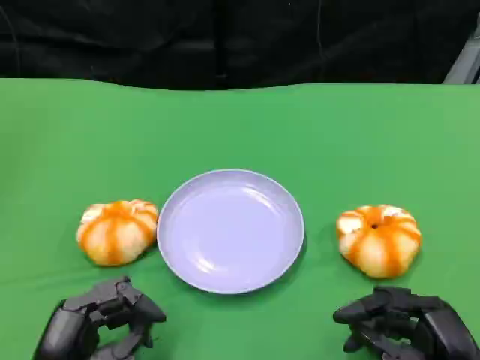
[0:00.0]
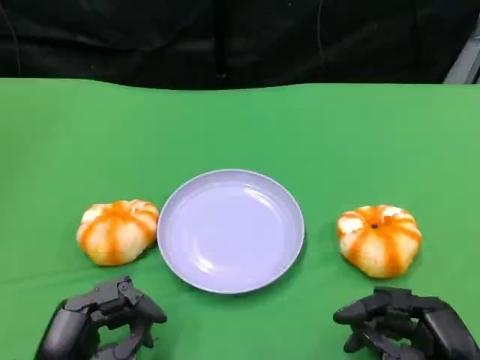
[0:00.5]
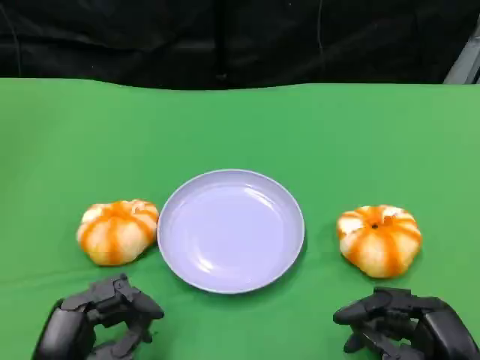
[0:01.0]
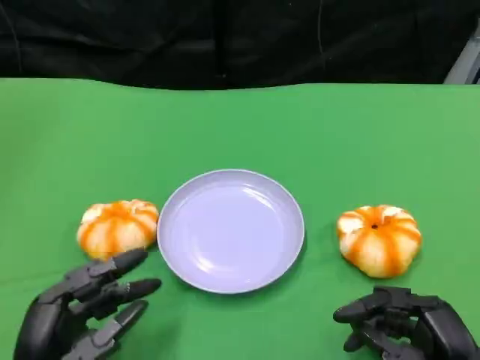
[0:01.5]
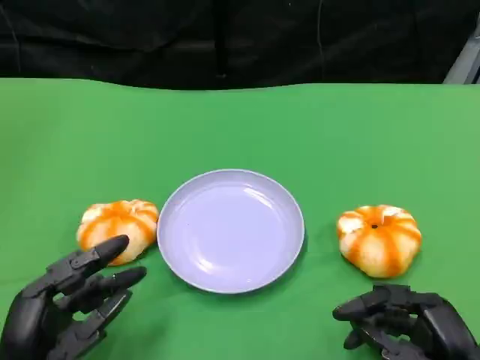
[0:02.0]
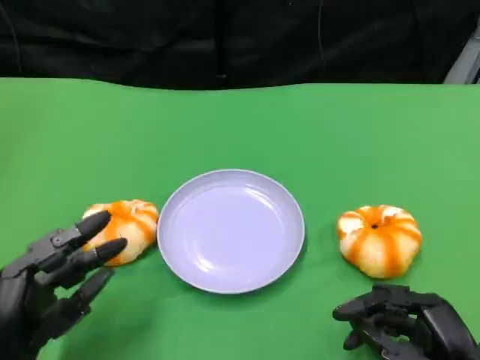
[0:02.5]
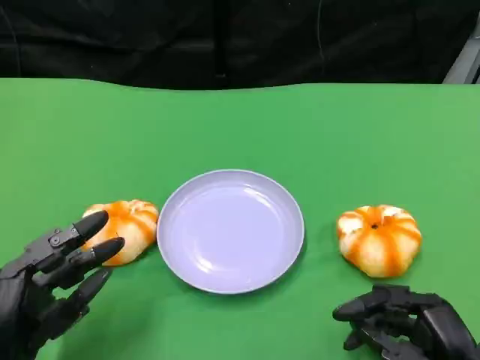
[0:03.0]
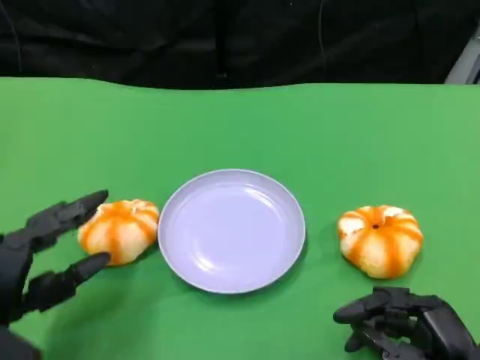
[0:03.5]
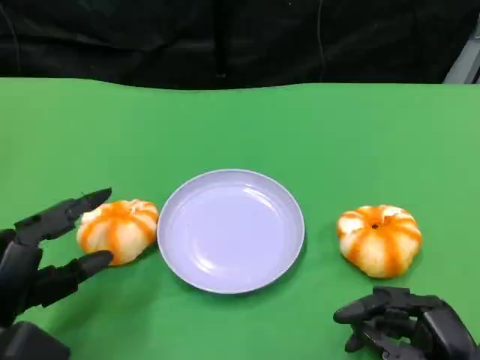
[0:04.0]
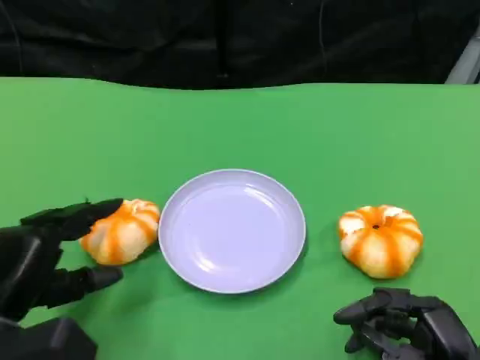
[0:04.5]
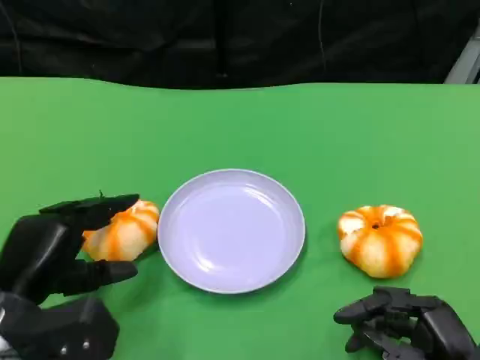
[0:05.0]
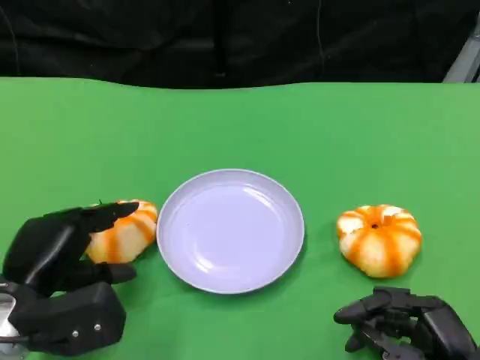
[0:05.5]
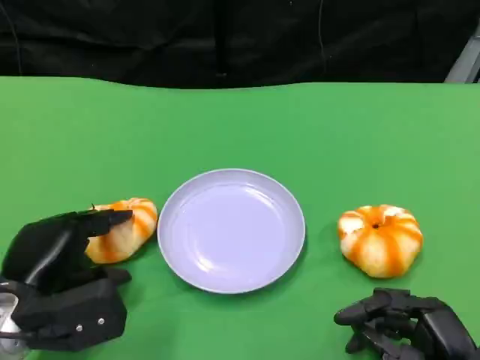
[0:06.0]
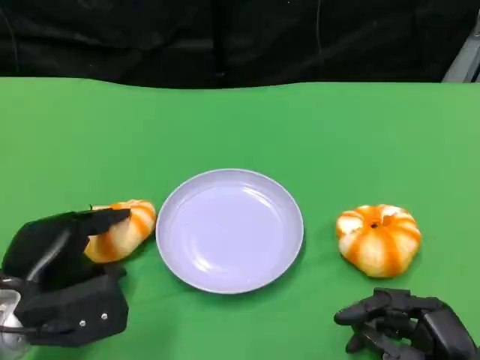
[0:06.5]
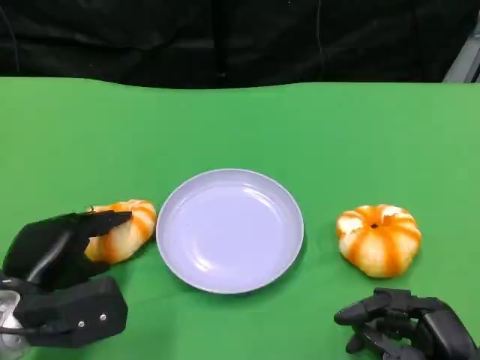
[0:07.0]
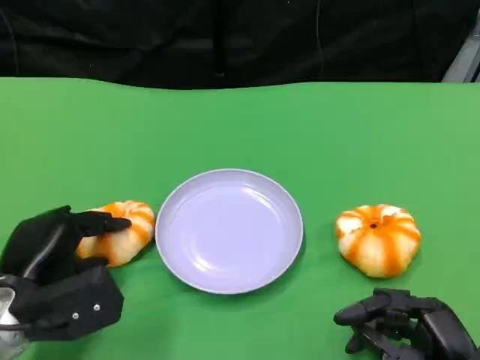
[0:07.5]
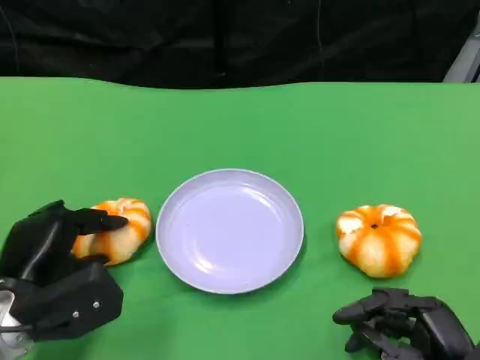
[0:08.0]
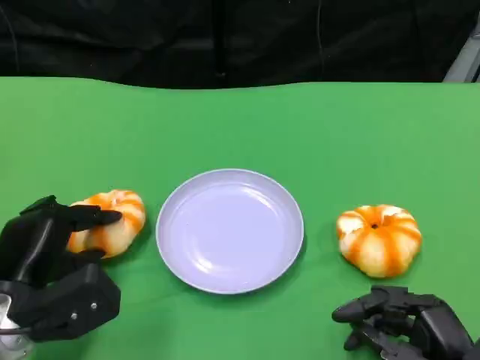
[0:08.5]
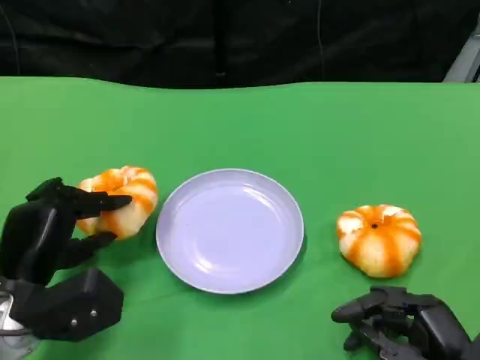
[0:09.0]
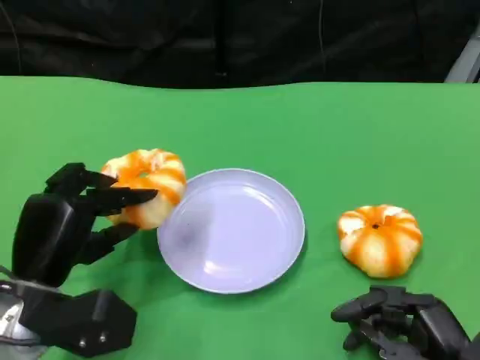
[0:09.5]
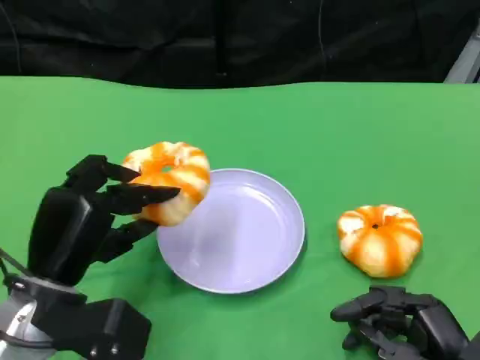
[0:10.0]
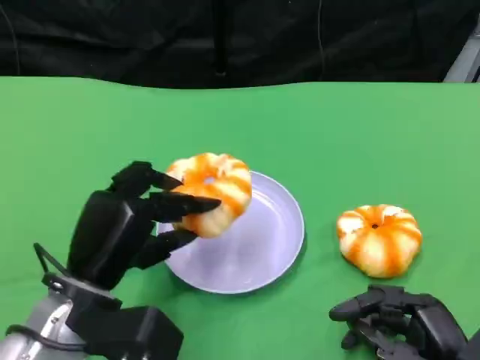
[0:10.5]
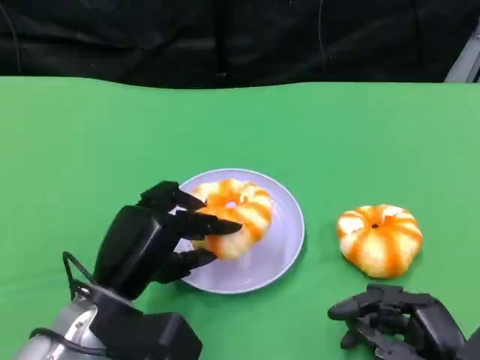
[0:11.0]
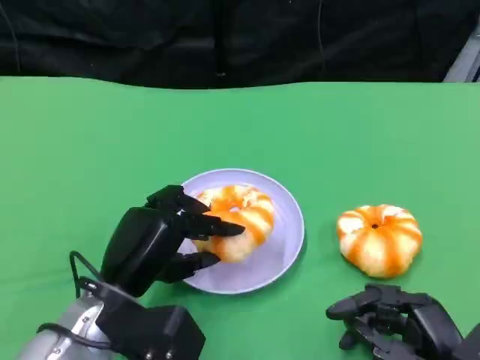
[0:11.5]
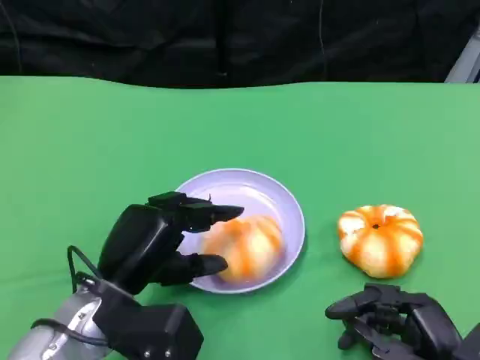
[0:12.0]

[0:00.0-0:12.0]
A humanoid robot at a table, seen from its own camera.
Task of the whole recording: Grasp the bread from the table and place it into the plate.
0:00.0 to 0:02.0: There are only small adjustments of the hands.
0:02.0 to 0:04.0: The left hand shifts by some 5 cm.
0:04.0 to 0:06.0: The left hand shifts by approximately 5 cm.
0:06.0 to 0:08.0: The hands make only small movements.
0:08.0 to 0:10.0: The left hand changes place by approximately 5 cm.

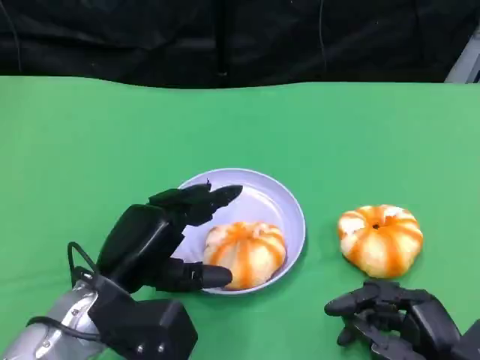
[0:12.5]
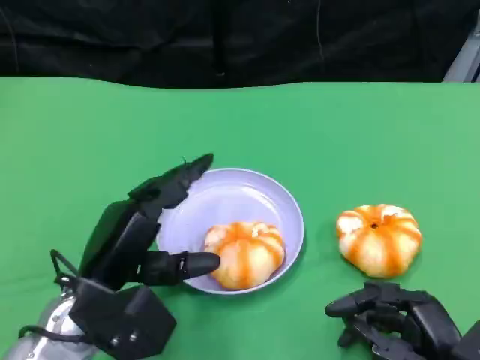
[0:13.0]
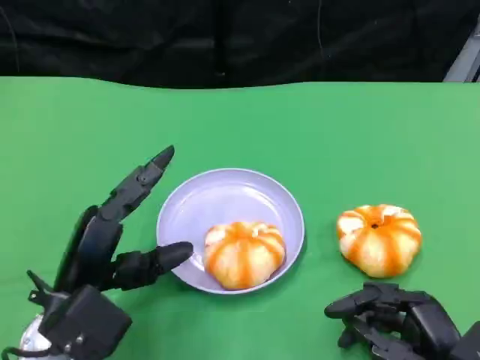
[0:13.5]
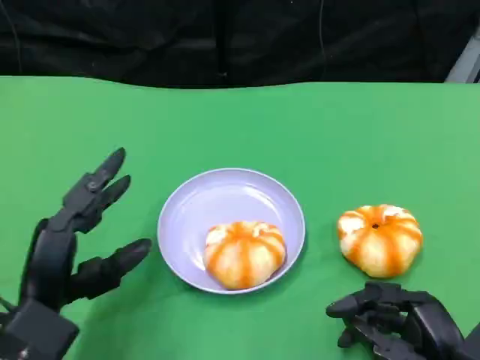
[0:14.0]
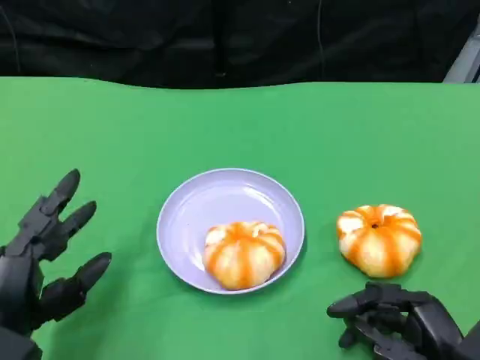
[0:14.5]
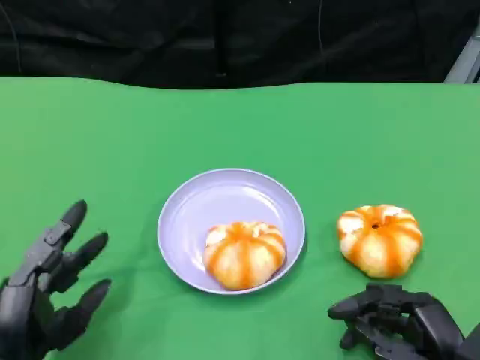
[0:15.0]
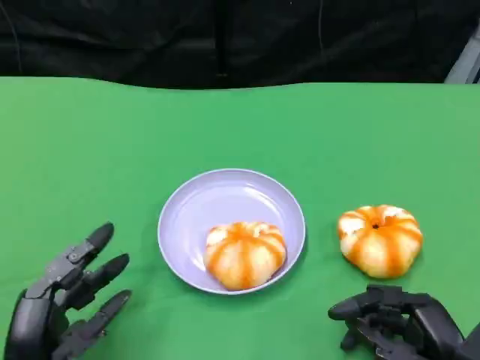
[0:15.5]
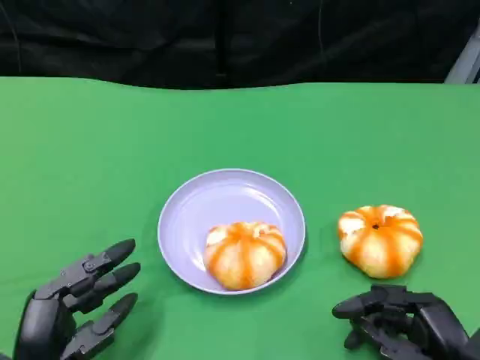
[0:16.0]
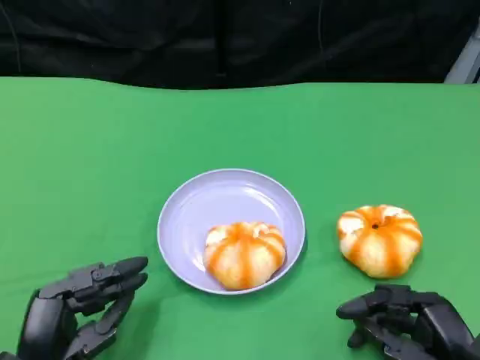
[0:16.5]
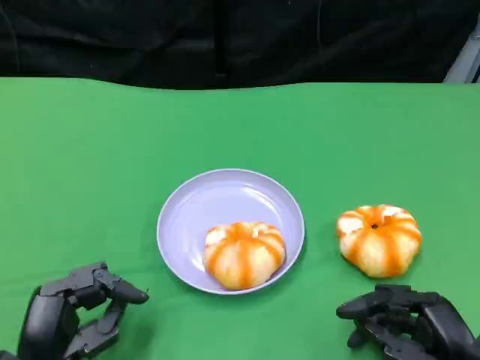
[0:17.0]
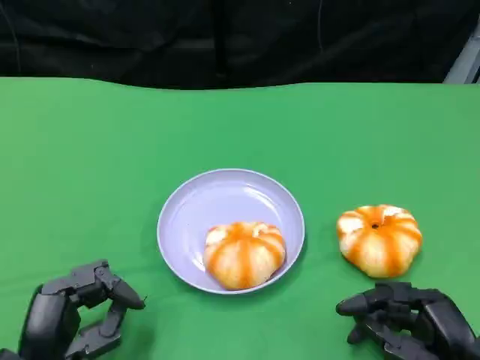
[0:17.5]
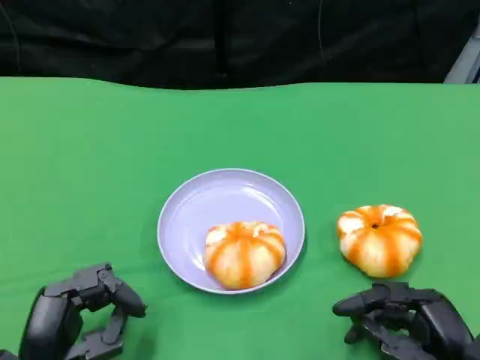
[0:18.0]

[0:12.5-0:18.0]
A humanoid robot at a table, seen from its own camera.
Task of the whole recording: Grasp the bread from the table and place it into the plate.
0:12.5 to 0:14.5: The left hand shifts approximately 10 cm to the left and backward.
0:14.5 to 0:16.0: The hands move only a little.
0:16.0 to 0:18.0: Both hands stay put.

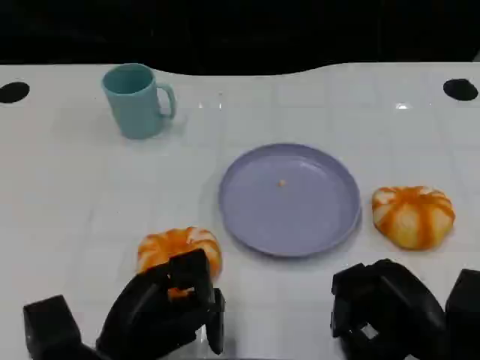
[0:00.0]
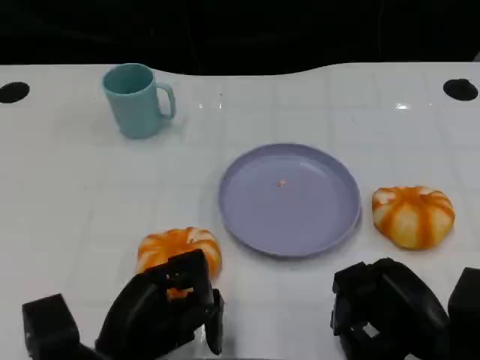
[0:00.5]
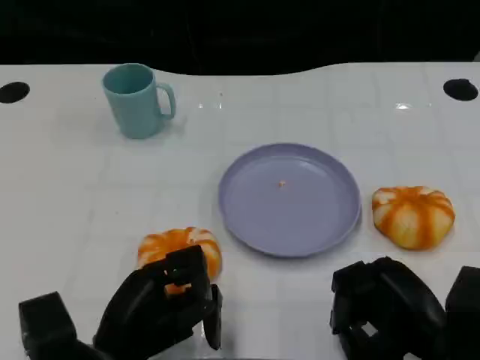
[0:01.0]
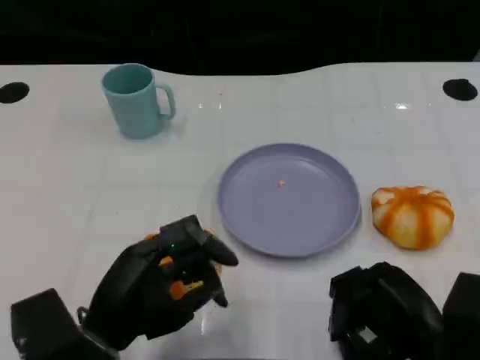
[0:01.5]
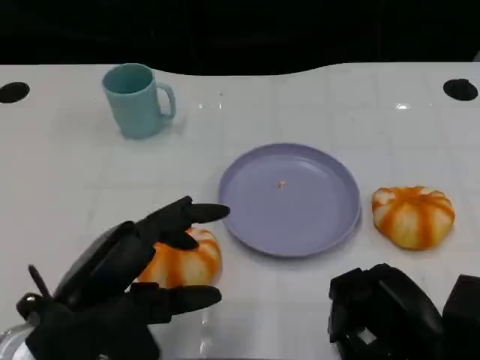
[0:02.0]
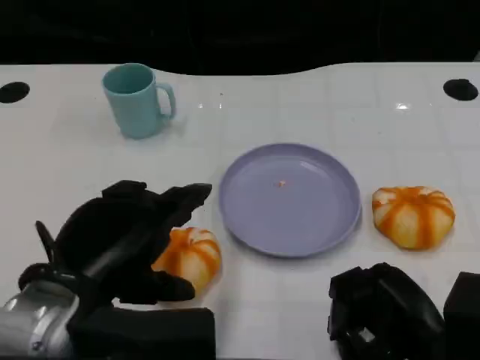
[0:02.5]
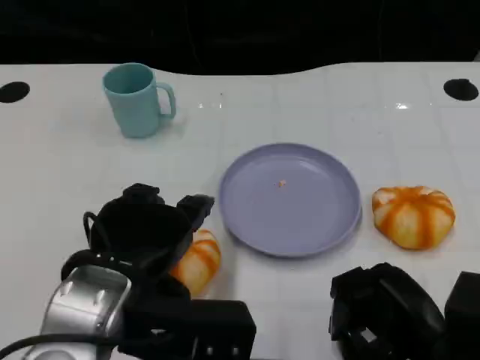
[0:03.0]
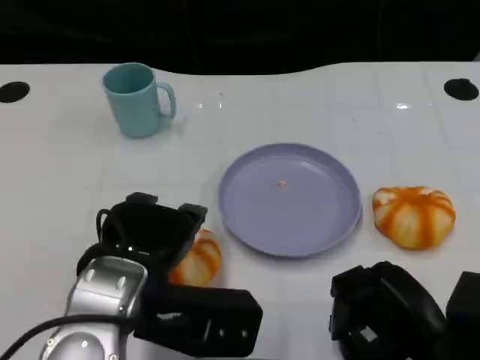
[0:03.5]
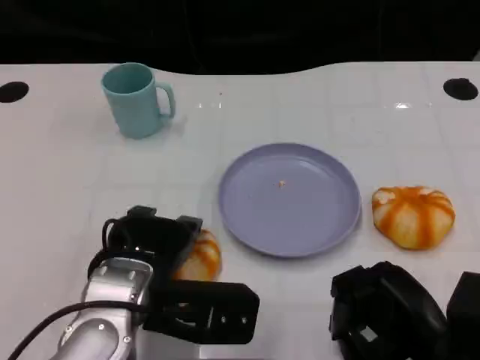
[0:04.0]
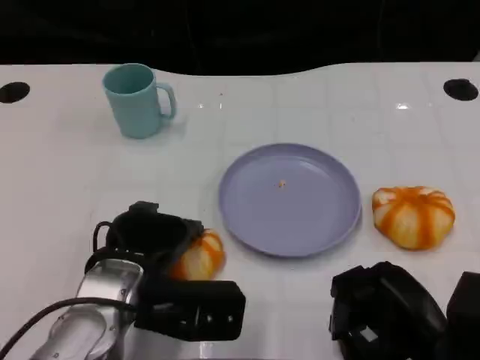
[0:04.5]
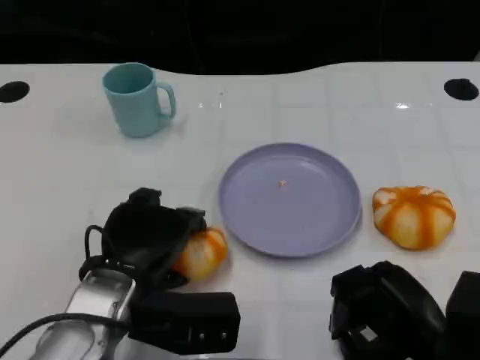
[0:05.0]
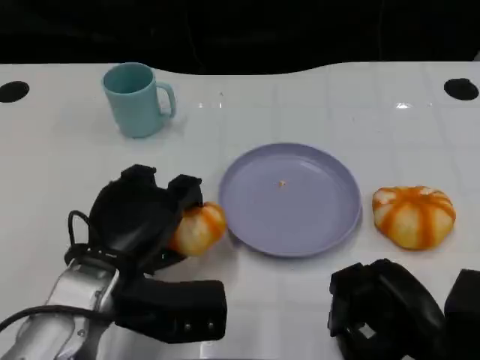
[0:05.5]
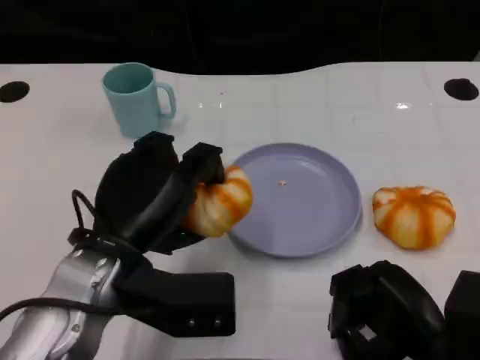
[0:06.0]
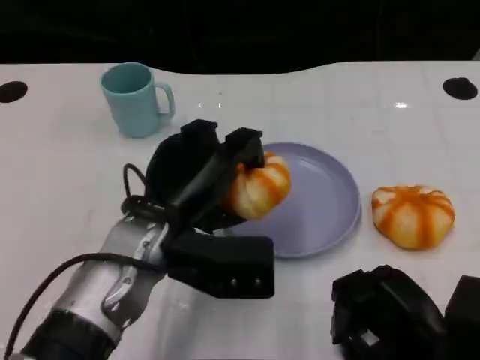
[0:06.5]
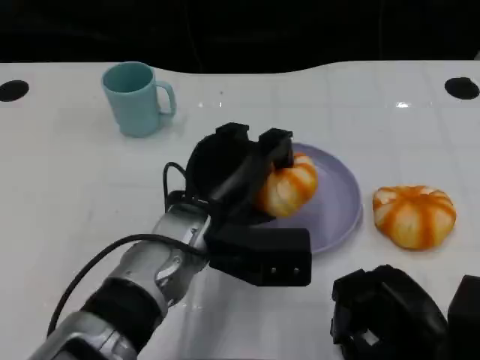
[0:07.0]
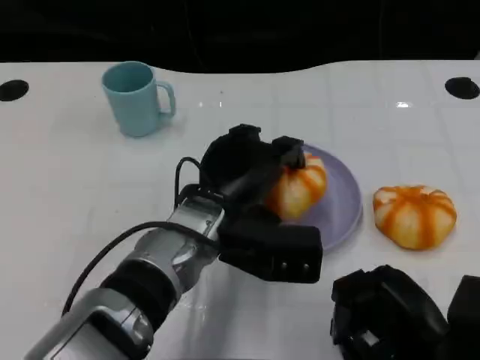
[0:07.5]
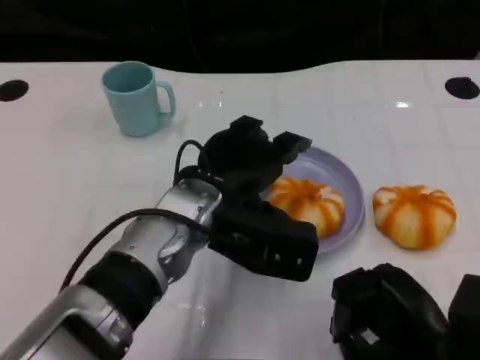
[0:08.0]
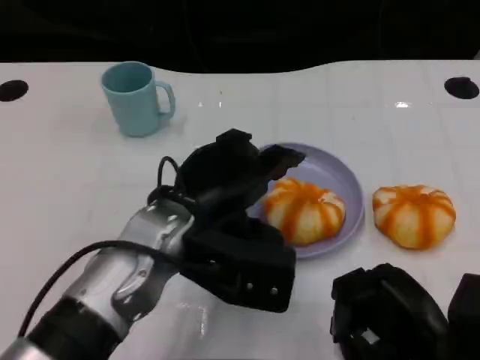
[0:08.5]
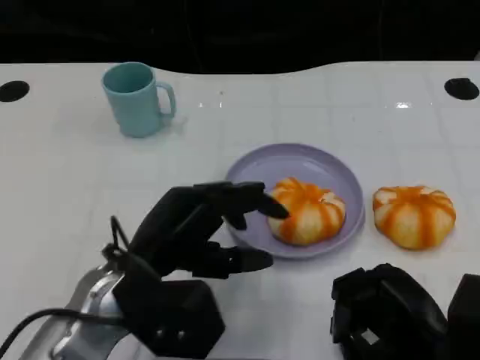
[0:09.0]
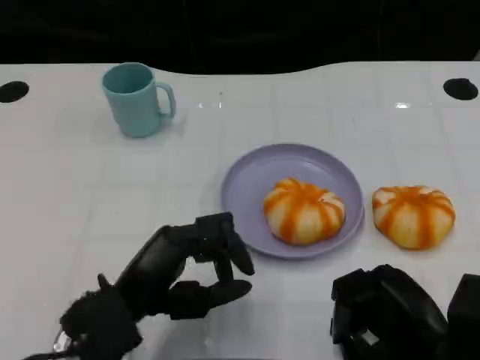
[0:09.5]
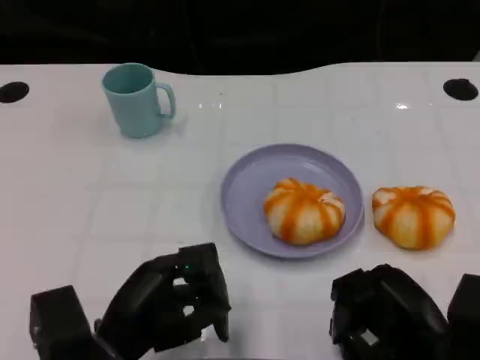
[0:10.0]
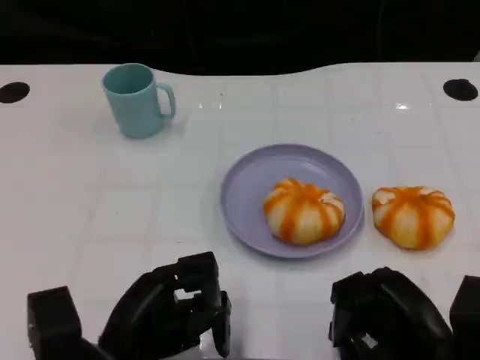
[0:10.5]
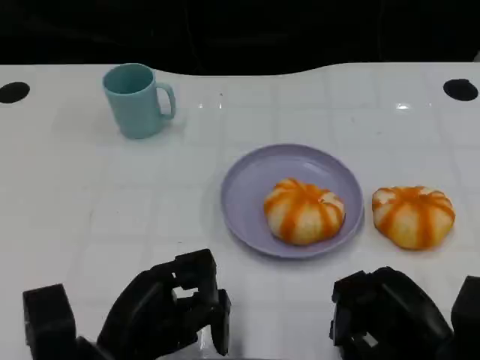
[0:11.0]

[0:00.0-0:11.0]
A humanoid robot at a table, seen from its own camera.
Task of the whole recording: Grasp the bread from the table and place it into the plate.
0:00.0 to 0:02.0: The left hand goes approximately 10 cm upward.
0:02.0 to 0:03.5: The left hand travels to the right by some 5 cm.
0:05.5 to 0:07.5: The left hand moves to the right and forward, approximately 10 cm.
0:07.5 to 0:09.0: The left hand is displaced to the left and backward by about 10 cm.
0:09.0 to 0:11.0: The left hand shifts some 10 cm downward and backward.
